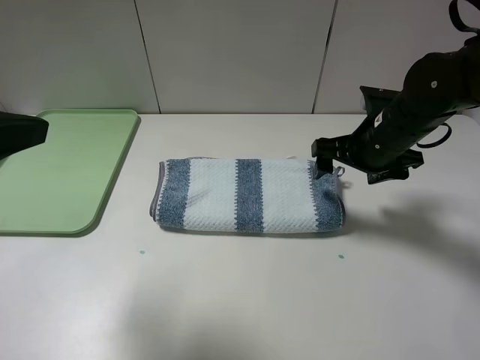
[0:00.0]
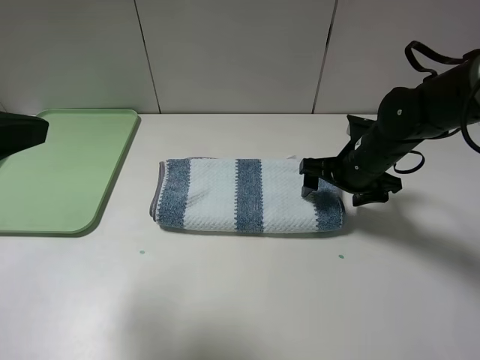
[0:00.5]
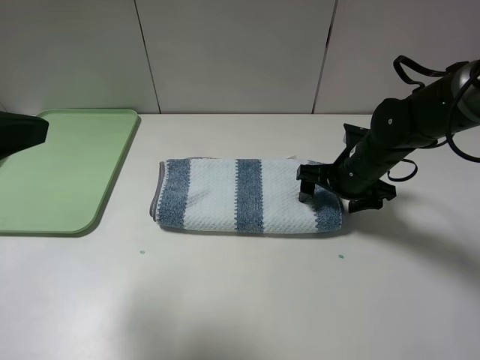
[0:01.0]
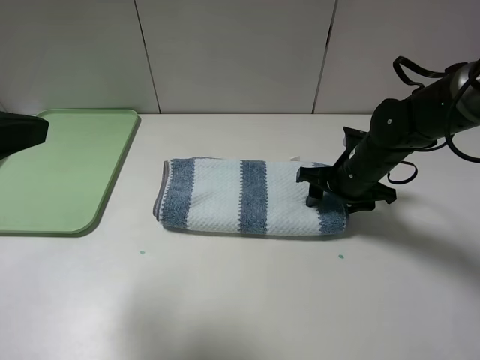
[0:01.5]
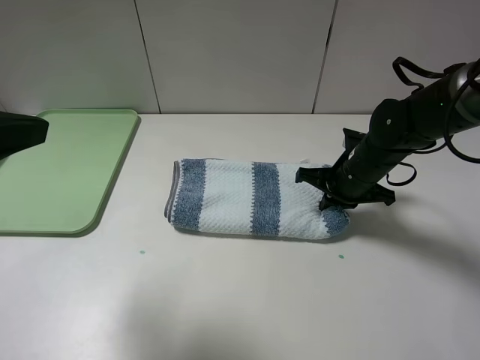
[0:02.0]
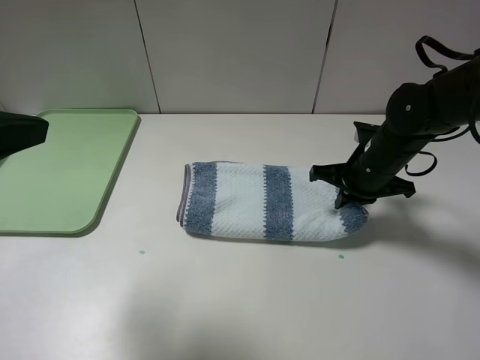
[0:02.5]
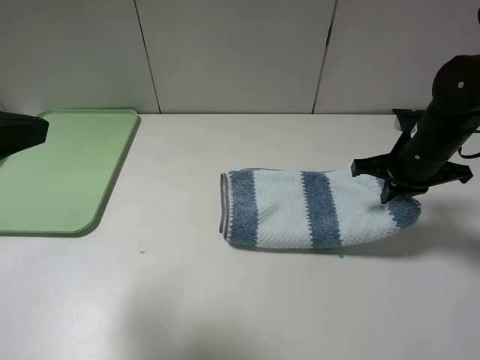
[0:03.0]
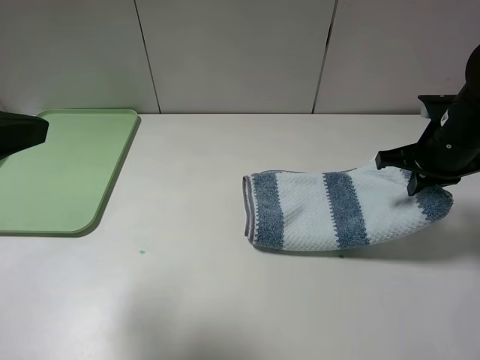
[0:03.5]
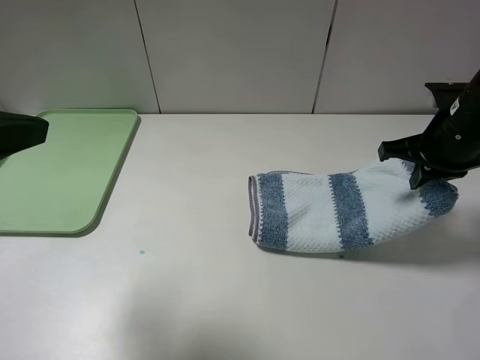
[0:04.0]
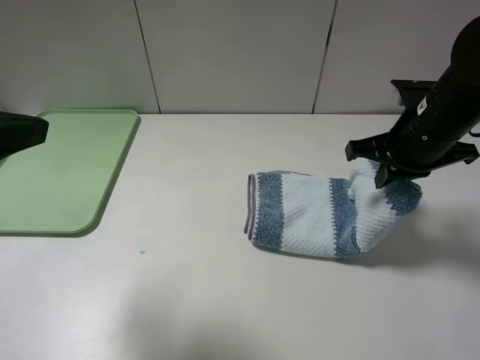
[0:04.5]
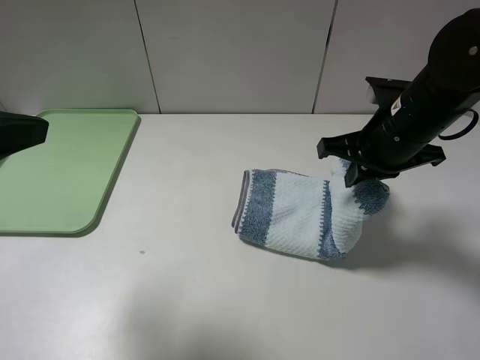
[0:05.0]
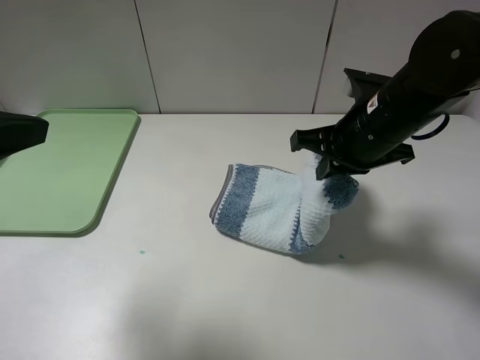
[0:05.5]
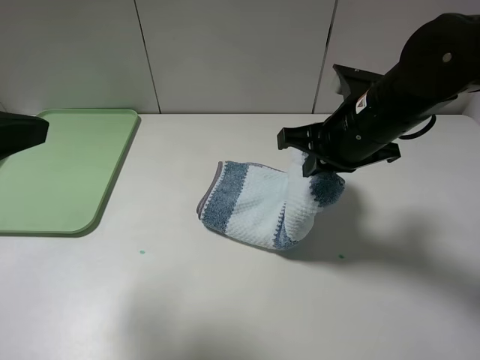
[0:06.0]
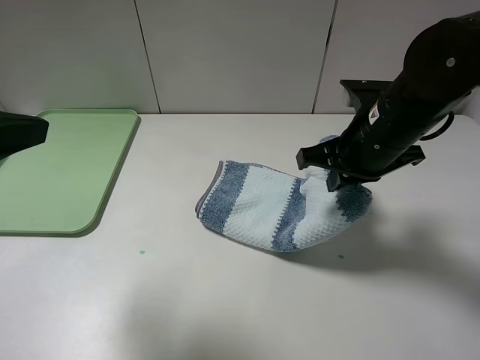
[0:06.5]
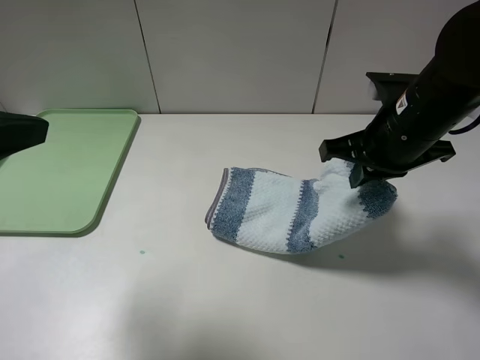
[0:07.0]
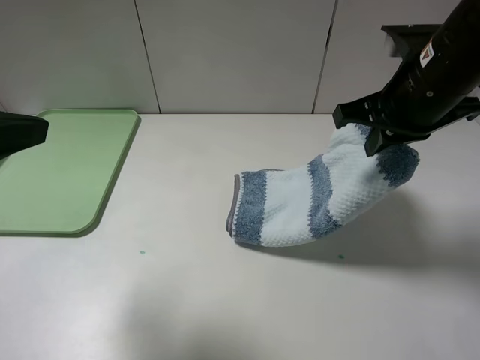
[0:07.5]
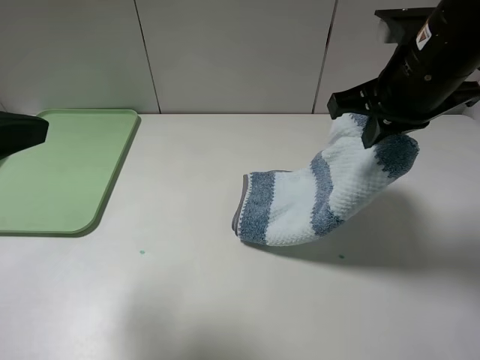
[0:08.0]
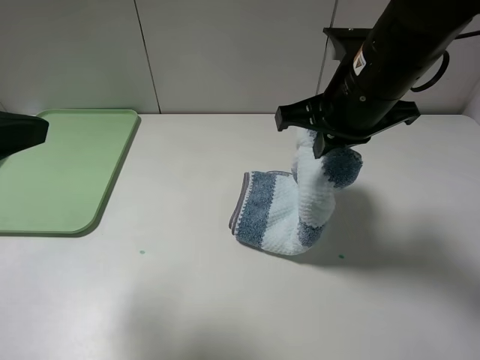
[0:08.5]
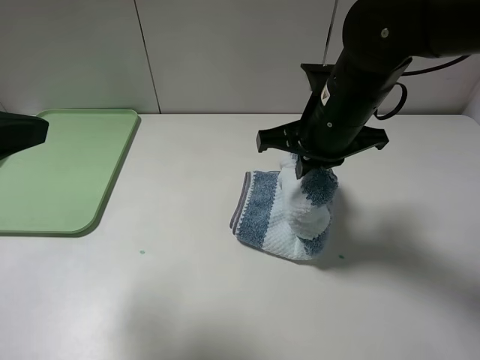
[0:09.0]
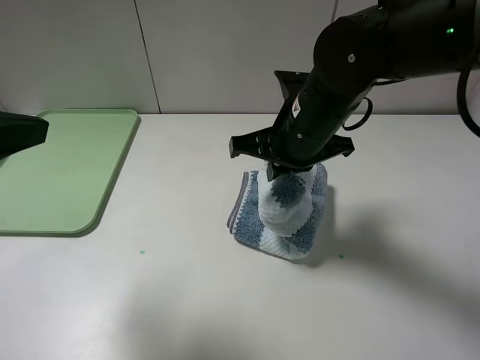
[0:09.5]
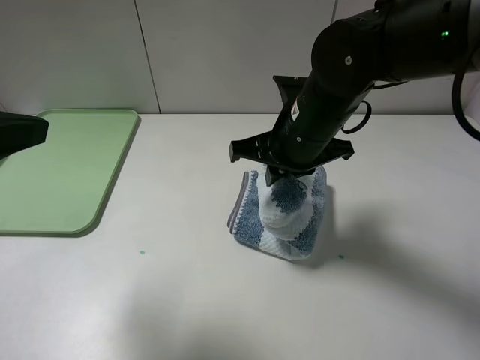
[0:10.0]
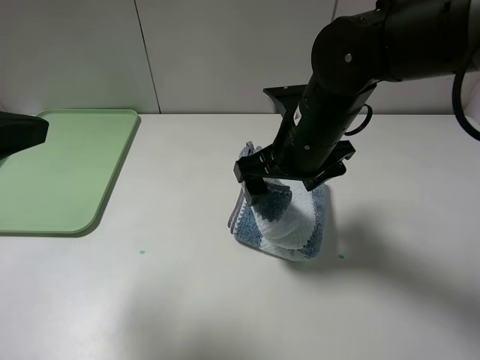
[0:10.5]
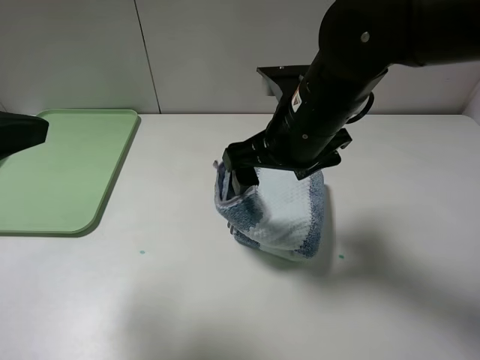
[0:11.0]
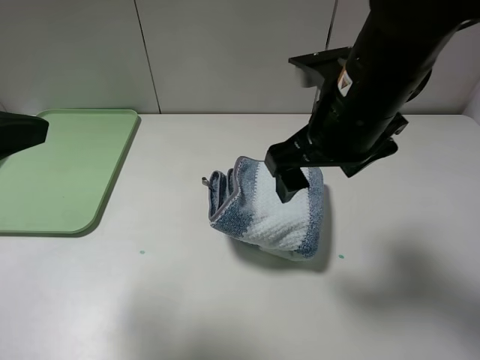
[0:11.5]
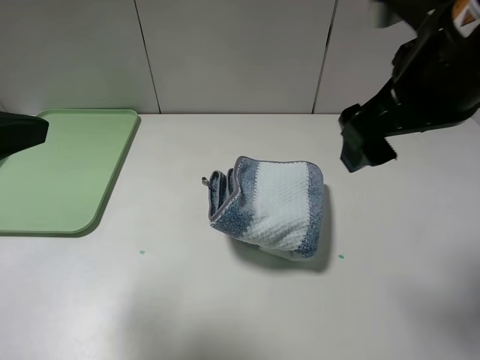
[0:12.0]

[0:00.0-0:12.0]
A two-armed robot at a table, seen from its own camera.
Step, 0:00.0 to 0:02.0: Grasp the blue white towel with the right gripper.
Step, 0:02.5 to 0:11.0: Fold the blue white towel from right to left with right gripper.
0:00.0 to 0:02.0: The right gripper goes roughly 5 cm downward, and closes its fingers.
0:02.0 to 0:04.0: The right gripper moves upward and to the right, about 15 cm.
0:04.0 to 0:06.0: The right gripper shifts roughly 10 cm to the left.
0:06.0 to 0:08.0: The right gripper heads upward, covering roughly 5 cm.
0:08.0 to 0:10.0: The right gripper heads to the left and downward, covering approximately 10 cm, and opens.
0:10.0 to 0:12.0: The right gripper moves upward, to the right and backward, roughly 15 cm, and opens its fingers.

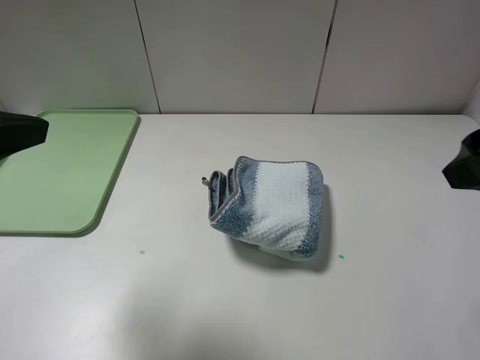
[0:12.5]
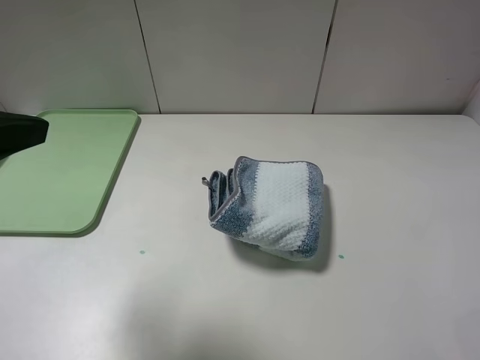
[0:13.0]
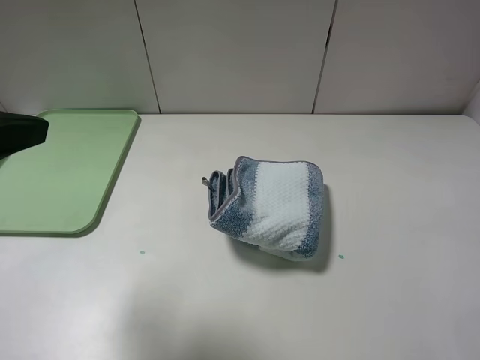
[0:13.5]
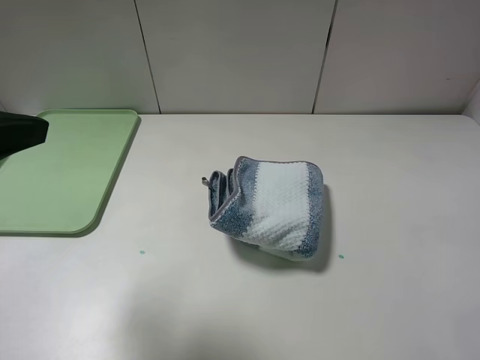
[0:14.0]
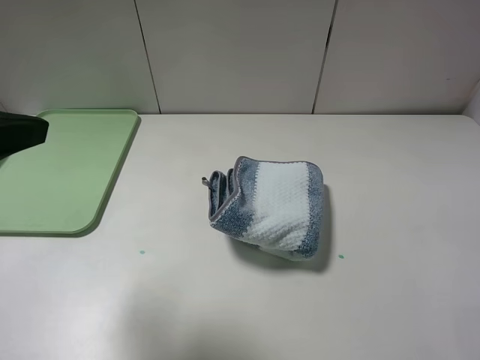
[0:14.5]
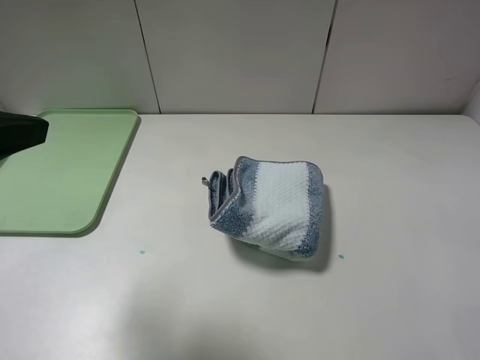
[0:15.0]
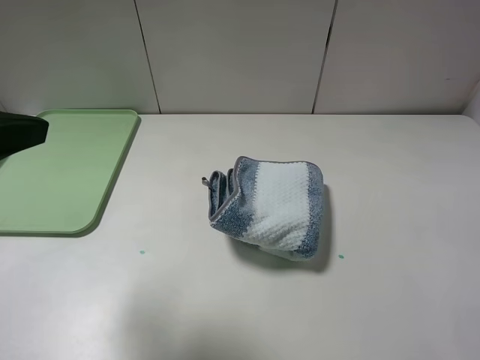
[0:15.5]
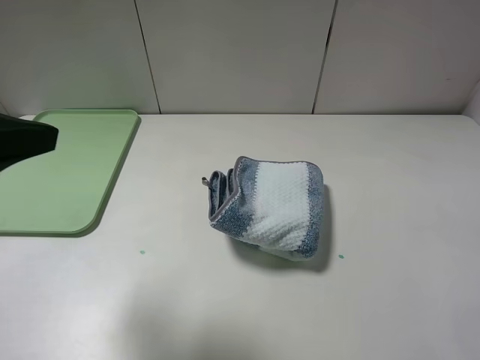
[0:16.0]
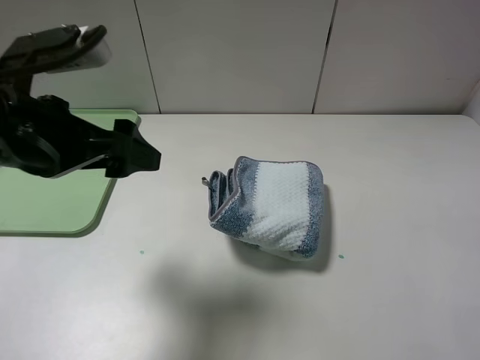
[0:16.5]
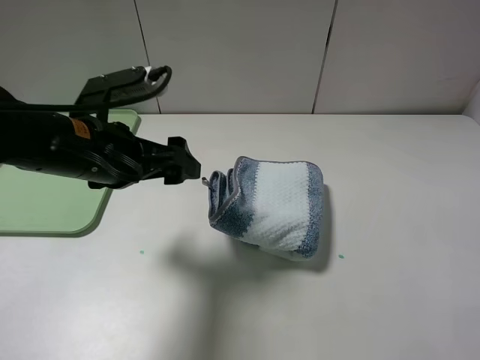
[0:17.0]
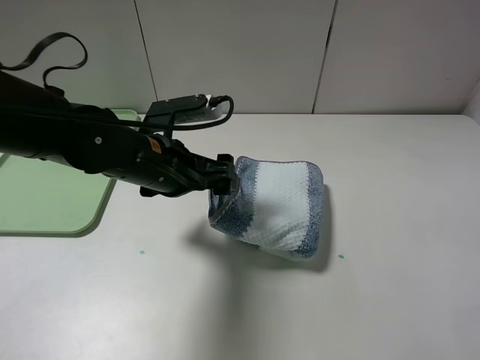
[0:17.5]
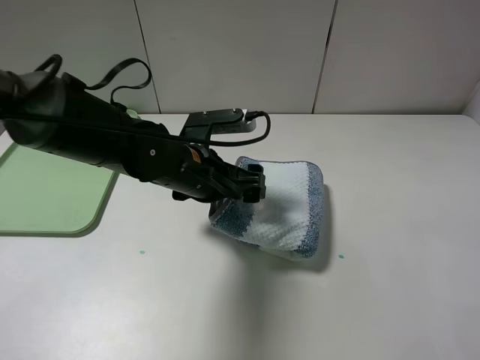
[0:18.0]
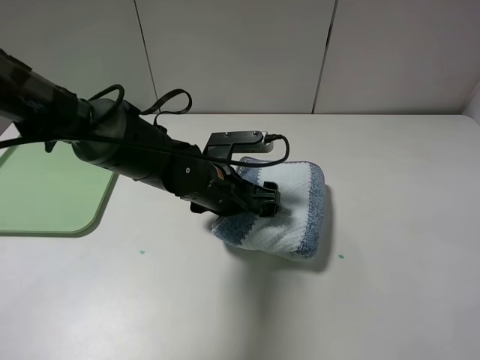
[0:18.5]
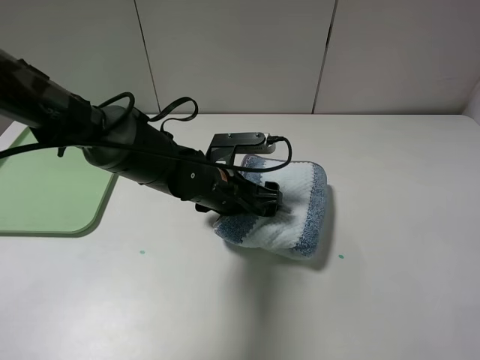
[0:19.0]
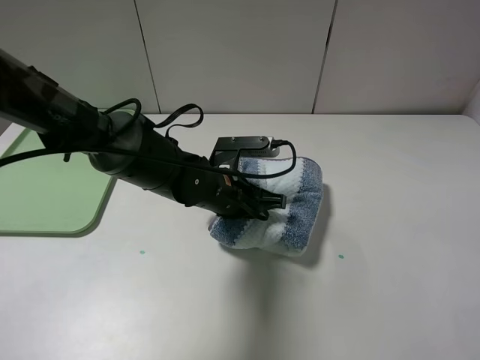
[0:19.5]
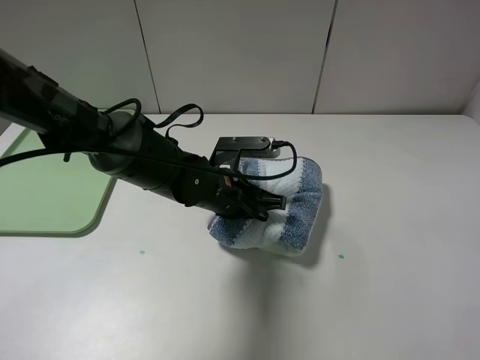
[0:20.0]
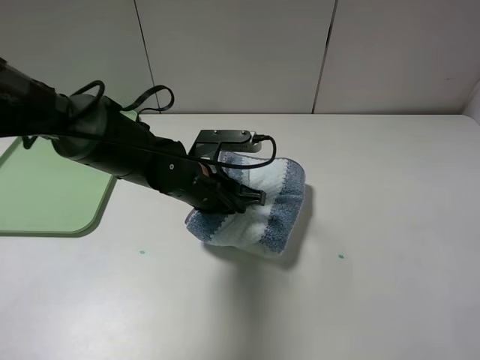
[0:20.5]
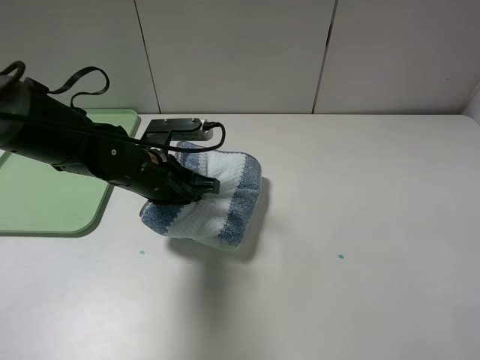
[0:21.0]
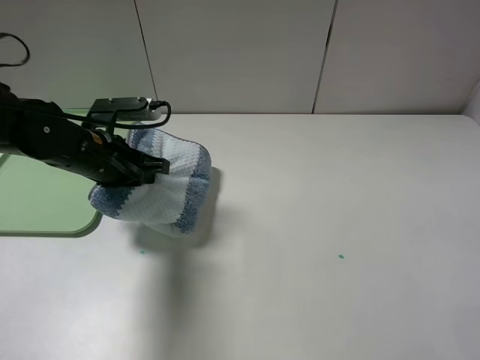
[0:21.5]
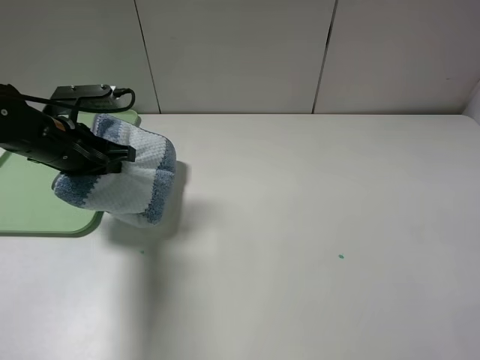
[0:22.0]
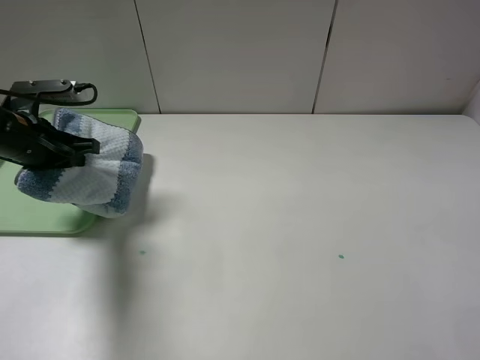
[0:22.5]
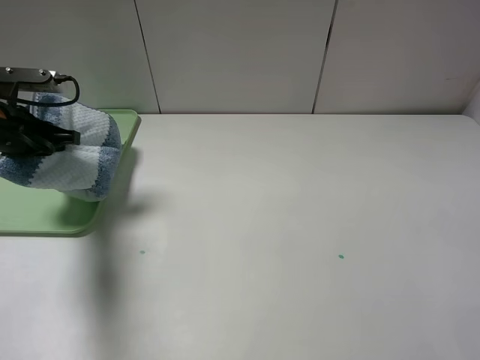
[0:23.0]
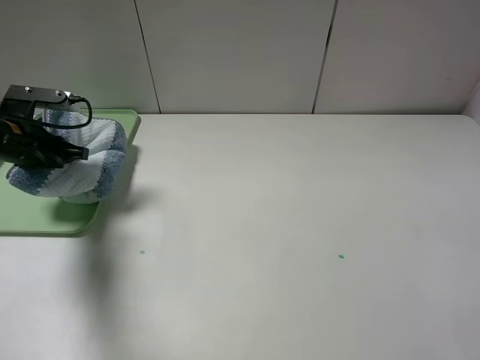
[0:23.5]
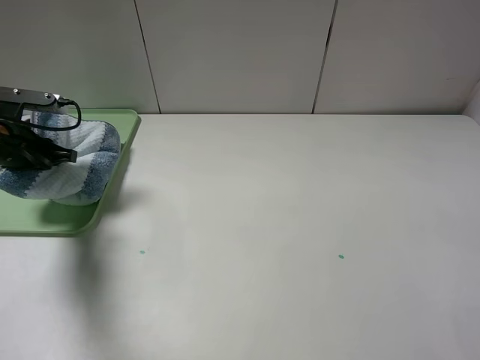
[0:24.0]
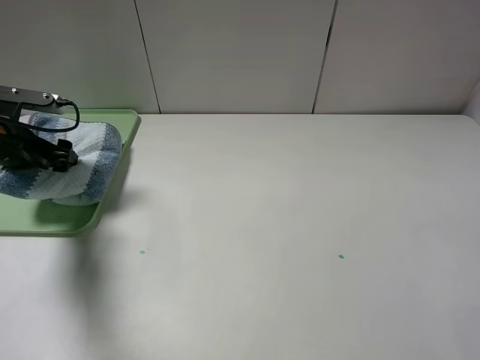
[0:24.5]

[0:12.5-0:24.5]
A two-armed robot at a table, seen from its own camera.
Step, 0:12.5 to 0:20.0: Grasp the blue white towel with the left gripper.
0:12.5 to 0:14.5: The right gripper is displaced backward and to the right by approximately 15 cm.
0:14.5 to 0:16.5: The left gripper heads forward, downward and to the right, covering some 10 cm.
0:16.5 to 0:18.5: The left gripper is displaced downward, to the right and forward by approximately 25 cm.
0:18.5 to 0:20.5: The left gripper closes up.
0:20.5 to 0:22.5: The left gripper shifts roughly 25 cm to the left.
0:22.5 to 0:24.5: The left gripper ends up about 5 cm from where it was, and opens.

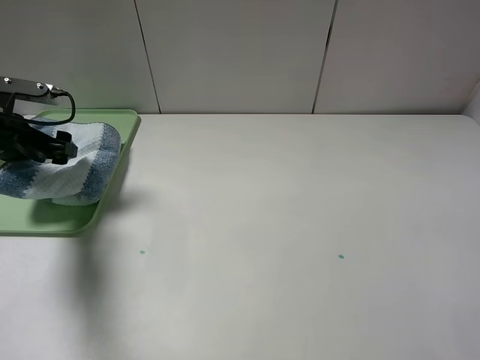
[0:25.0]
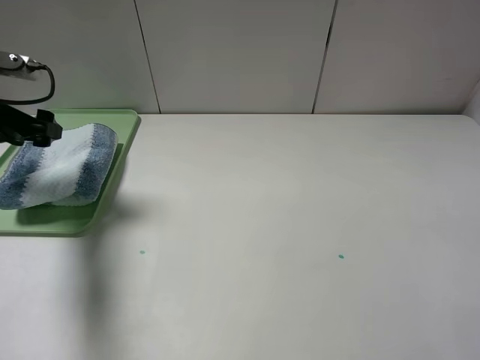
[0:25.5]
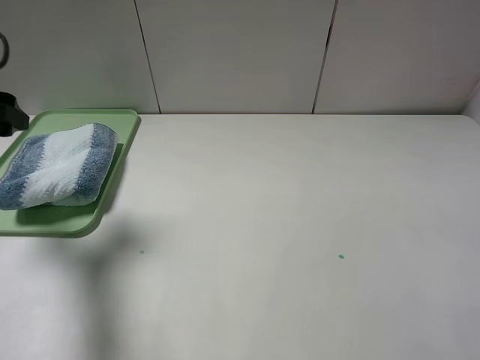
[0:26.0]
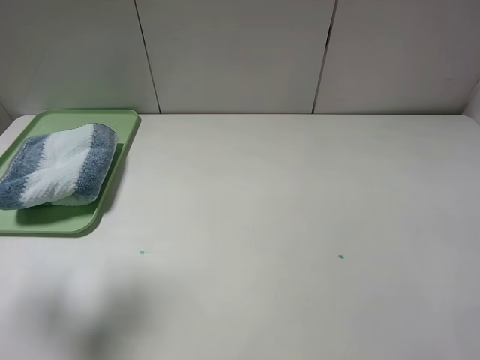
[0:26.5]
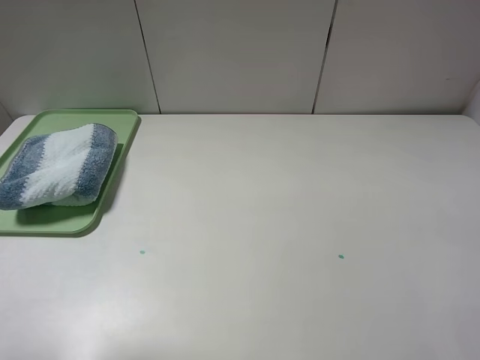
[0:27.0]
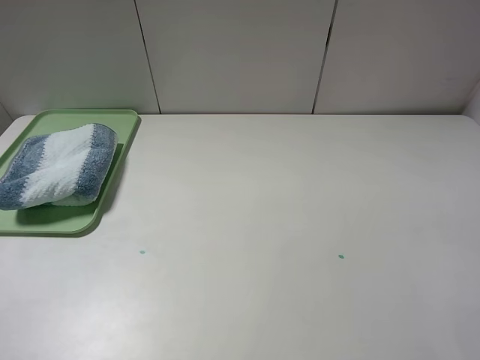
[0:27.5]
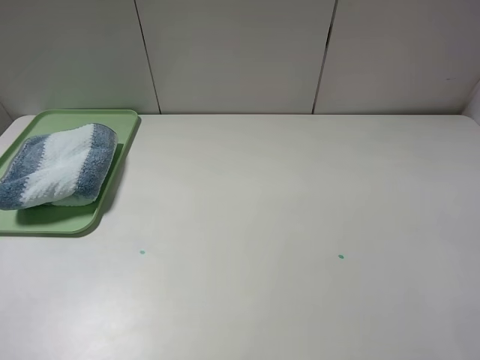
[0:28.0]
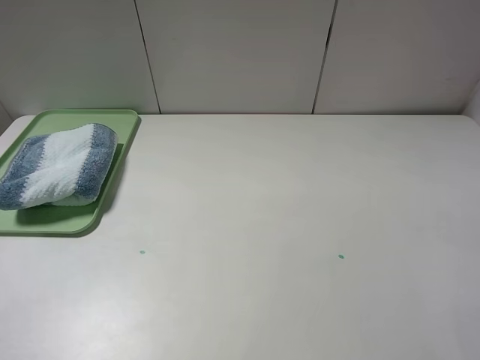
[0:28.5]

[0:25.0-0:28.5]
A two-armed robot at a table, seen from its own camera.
0:25.0 to 0:27.0: The left gripper is displaced backward and upward by roughly 30 cm.
